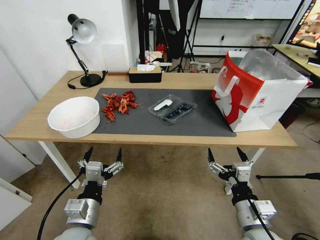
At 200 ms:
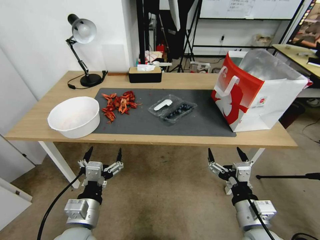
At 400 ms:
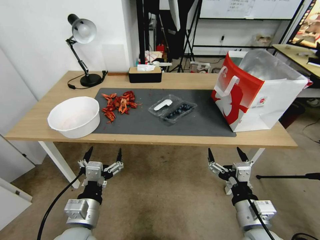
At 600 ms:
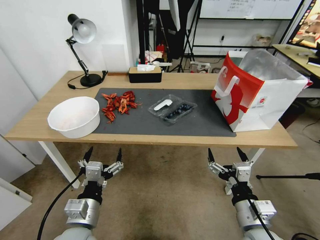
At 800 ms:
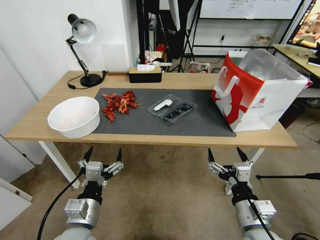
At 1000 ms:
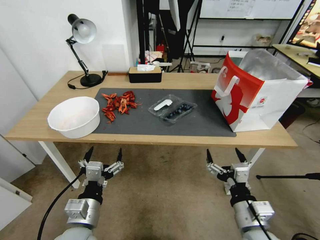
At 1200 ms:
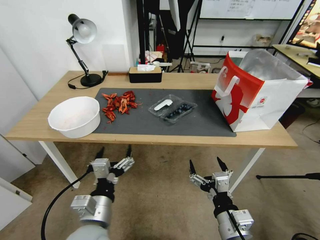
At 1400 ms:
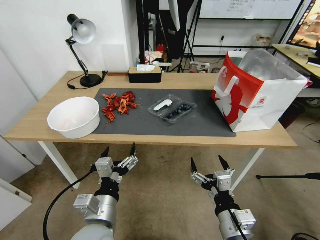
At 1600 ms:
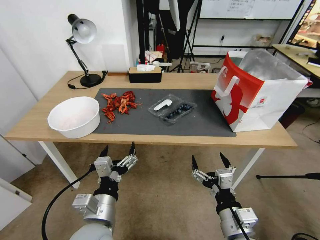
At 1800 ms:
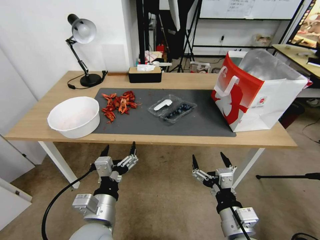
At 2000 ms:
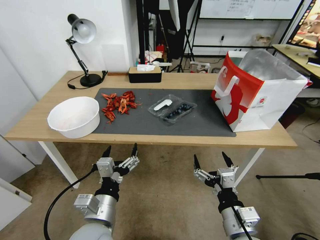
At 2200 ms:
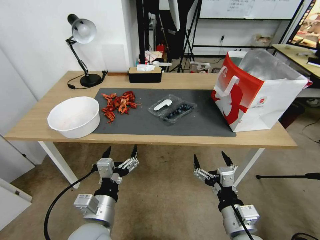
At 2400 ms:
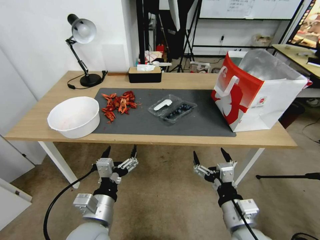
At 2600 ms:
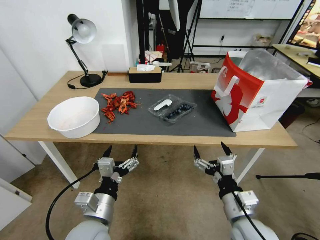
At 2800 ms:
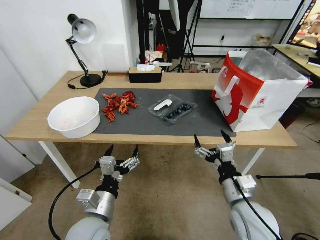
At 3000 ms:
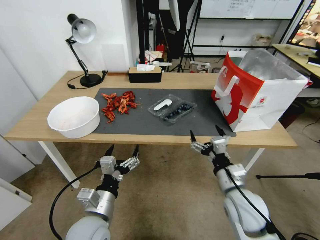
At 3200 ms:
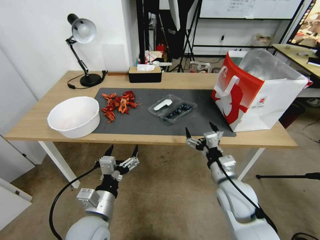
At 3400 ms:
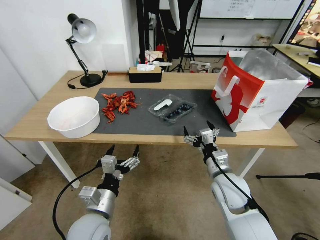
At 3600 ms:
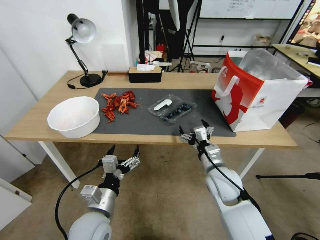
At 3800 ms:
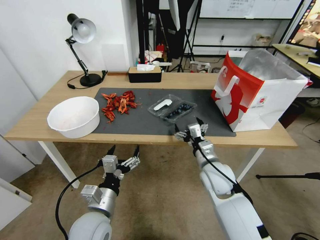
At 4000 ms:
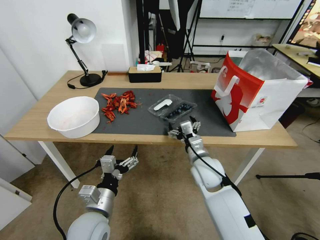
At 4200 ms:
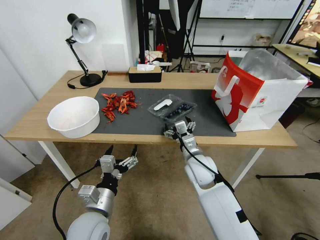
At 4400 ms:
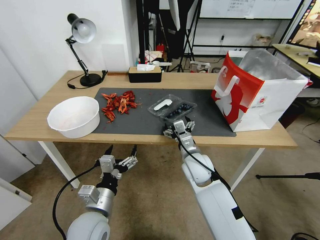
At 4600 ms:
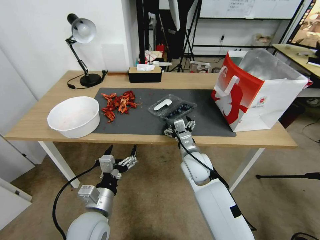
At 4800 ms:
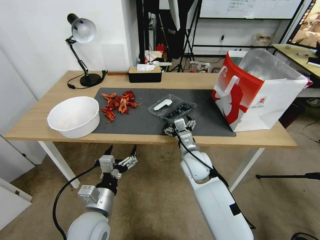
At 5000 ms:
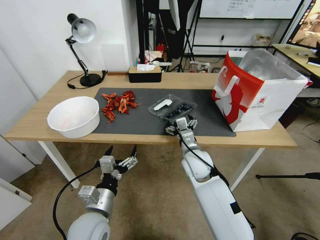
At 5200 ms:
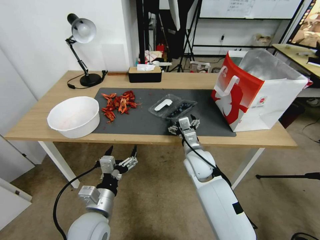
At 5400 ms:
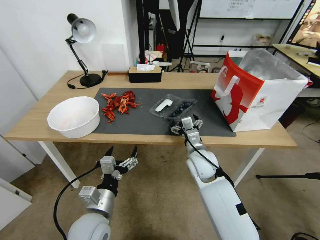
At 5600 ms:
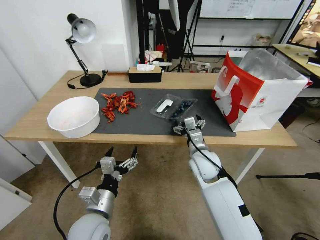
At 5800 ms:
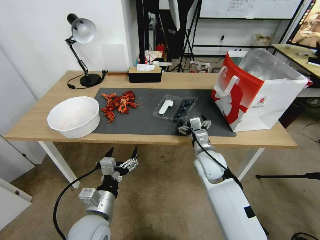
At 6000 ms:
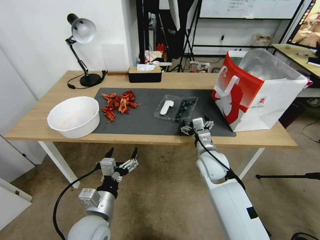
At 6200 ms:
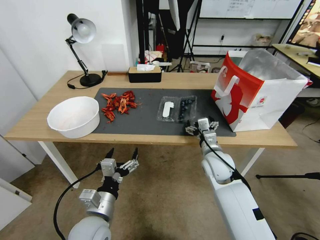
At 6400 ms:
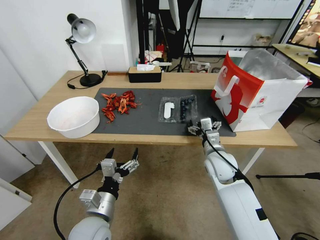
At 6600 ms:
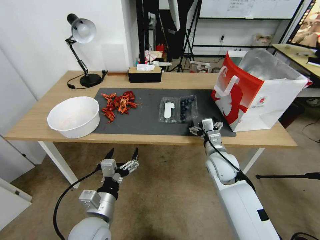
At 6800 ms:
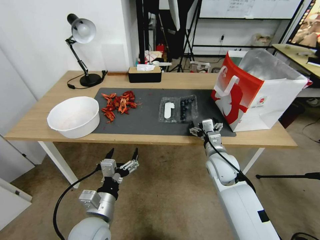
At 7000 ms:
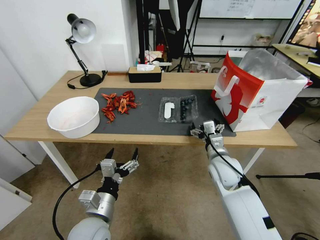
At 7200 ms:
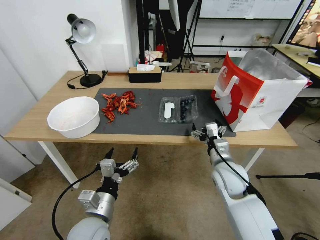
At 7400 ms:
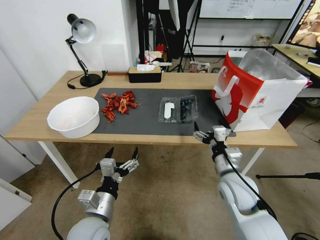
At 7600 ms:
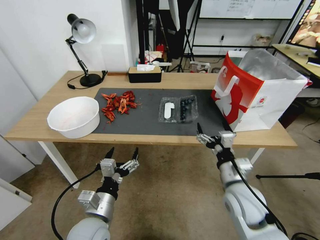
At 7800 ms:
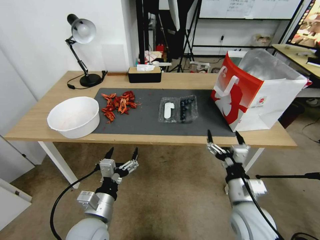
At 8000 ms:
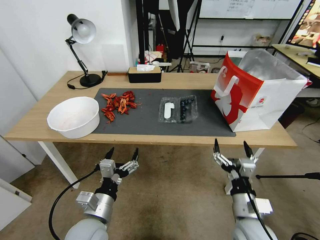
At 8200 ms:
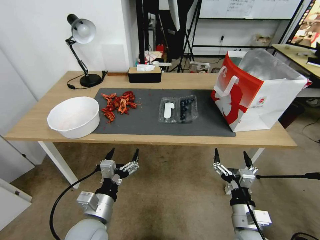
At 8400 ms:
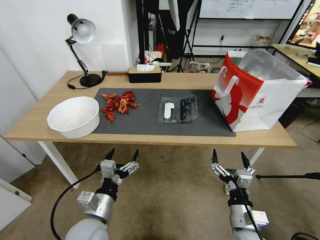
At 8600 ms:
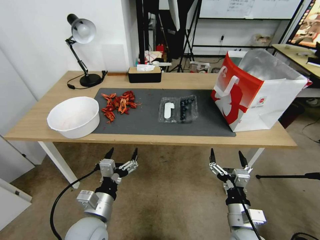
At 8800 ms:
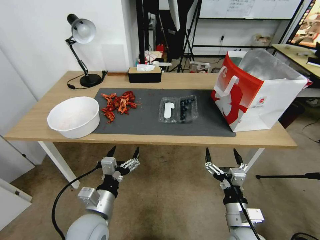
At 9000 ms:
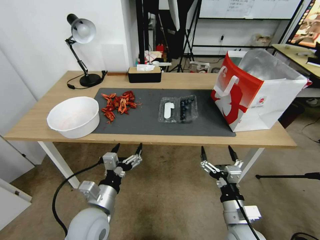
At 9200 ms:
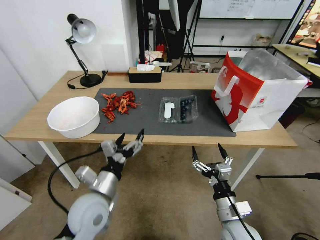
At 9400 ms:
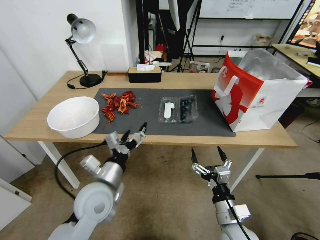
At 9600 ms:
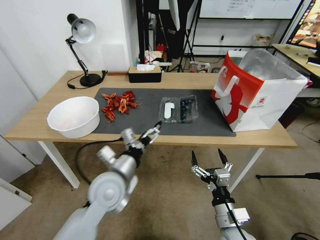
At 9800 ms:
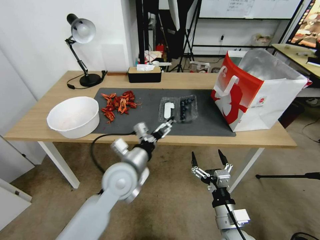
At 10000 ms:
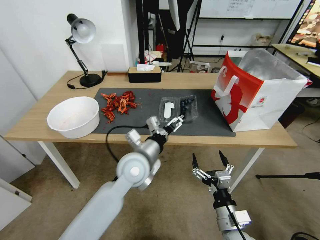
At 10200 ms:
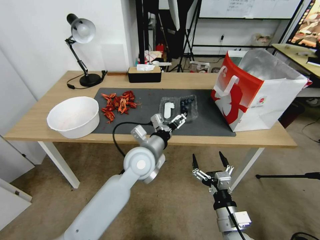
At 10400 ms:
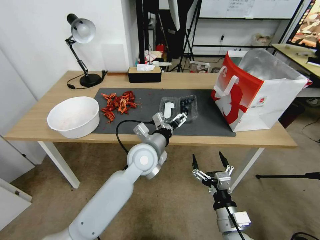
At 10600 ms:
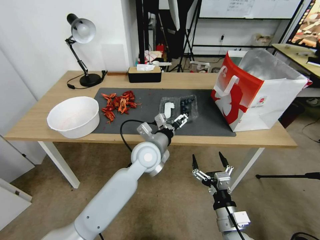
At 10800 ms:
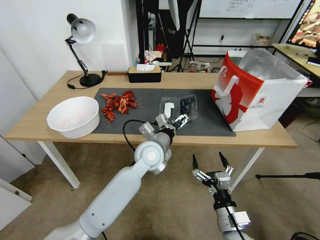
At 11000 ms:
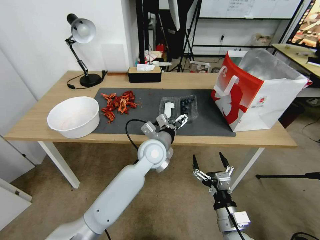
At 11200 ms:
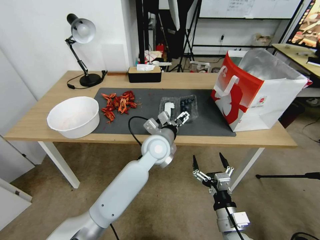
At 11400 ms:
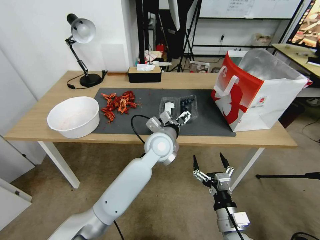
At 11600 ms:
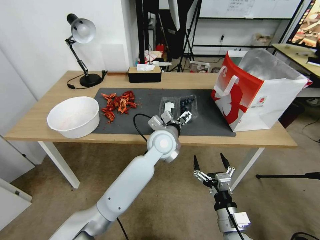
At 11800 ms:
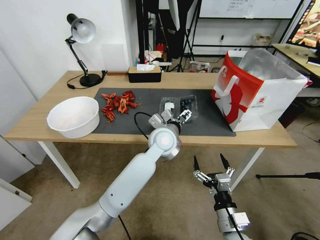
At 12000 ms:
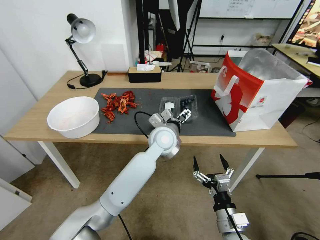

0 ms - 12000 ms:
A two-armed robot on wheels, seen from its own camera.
Task of the whole recording: Close the takeout container lid, then place the container into the takeout bag.
1600 ms - 3000 ms: The right gripper moves forward, roughly 10 cm.
3000 ms - 4400 ms: The right gripper goes roughly 15 cm forward and to the left.
4400 ms - 6000 ms: The right gripper shifts some 5 cm to the right.
6000 ms - 7600 ms: The right gripper is displaced backward by approximately 10 cm.
7600 ms - 9000 ms: The right gripper shifts some 10 cm backward and downward.
9000 ms - 10400 ms: The left gripper is displaced forward, to the right and upward by approximately 25 cm.
10400 ms - 12000 ms: The left gripper moves to the right and forward, about 10 cm.

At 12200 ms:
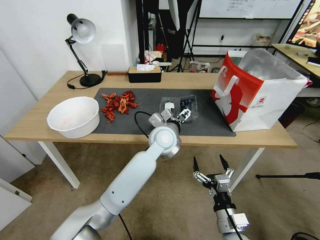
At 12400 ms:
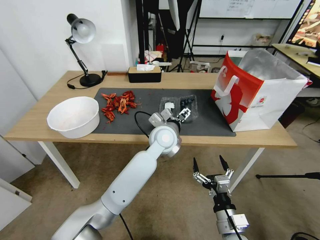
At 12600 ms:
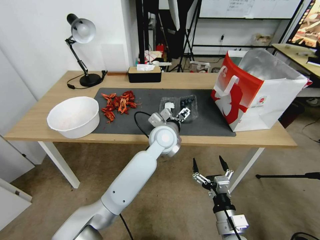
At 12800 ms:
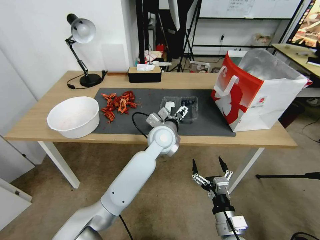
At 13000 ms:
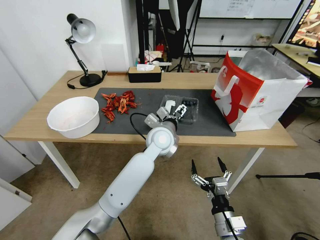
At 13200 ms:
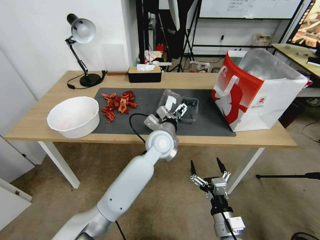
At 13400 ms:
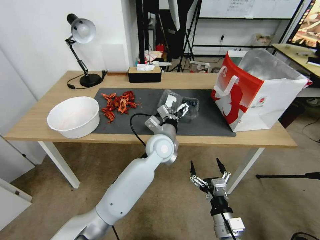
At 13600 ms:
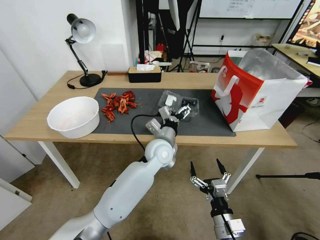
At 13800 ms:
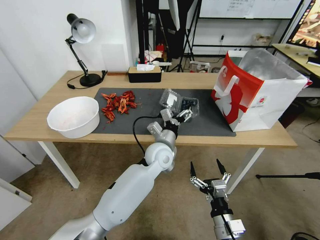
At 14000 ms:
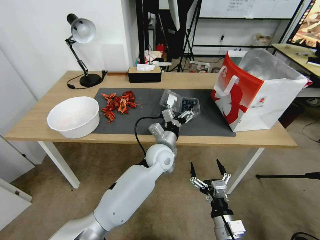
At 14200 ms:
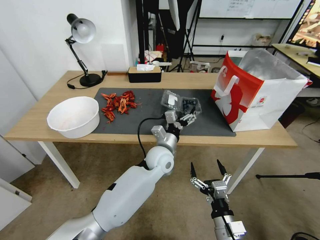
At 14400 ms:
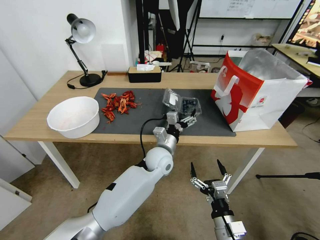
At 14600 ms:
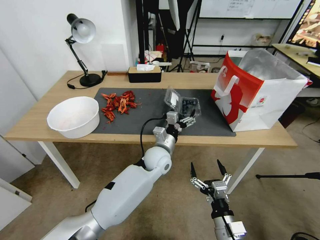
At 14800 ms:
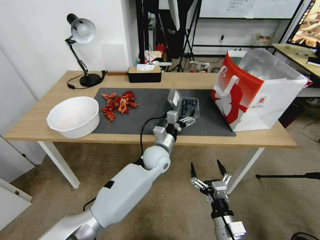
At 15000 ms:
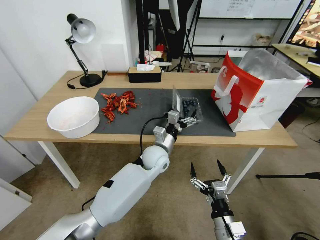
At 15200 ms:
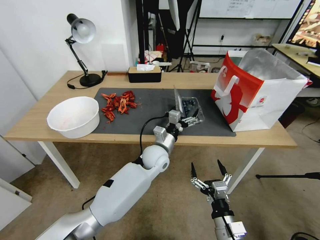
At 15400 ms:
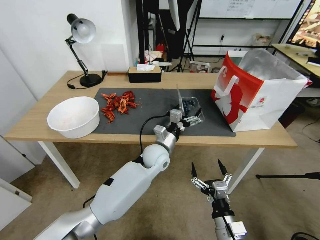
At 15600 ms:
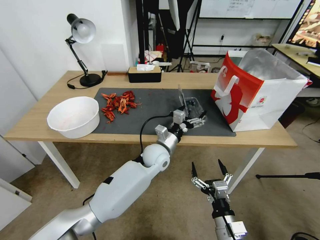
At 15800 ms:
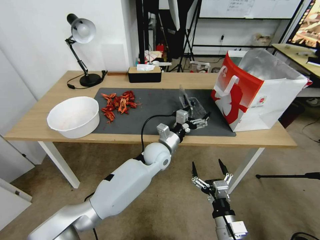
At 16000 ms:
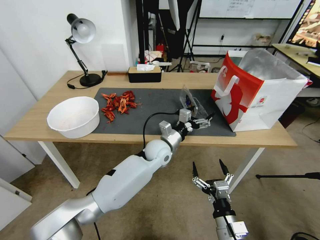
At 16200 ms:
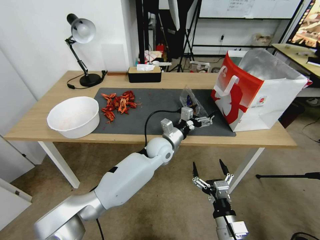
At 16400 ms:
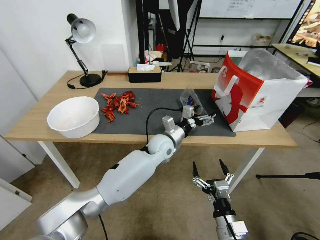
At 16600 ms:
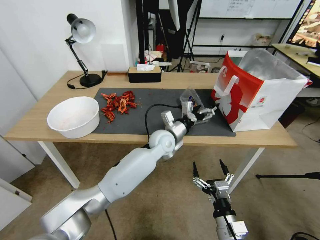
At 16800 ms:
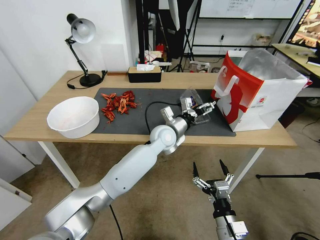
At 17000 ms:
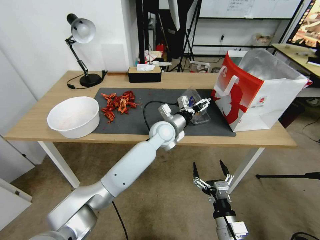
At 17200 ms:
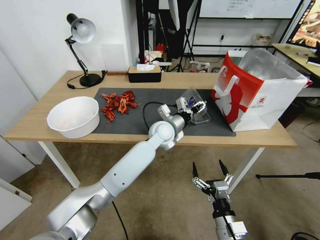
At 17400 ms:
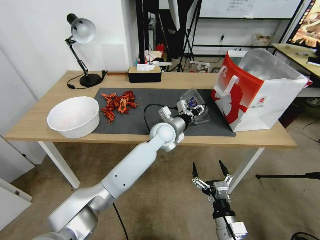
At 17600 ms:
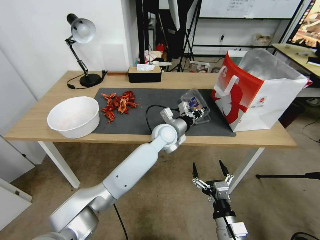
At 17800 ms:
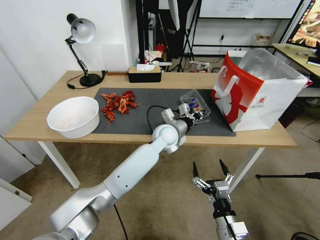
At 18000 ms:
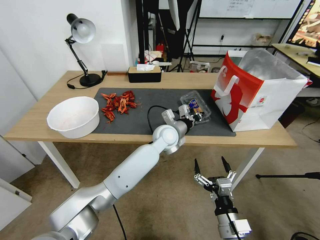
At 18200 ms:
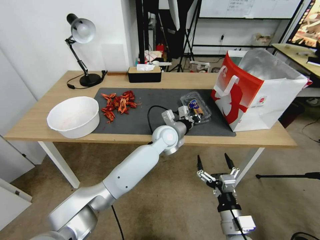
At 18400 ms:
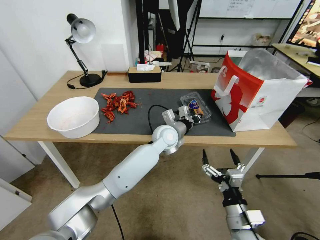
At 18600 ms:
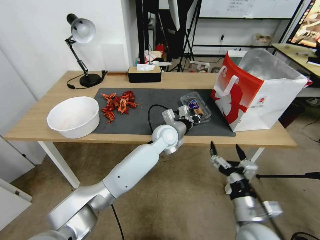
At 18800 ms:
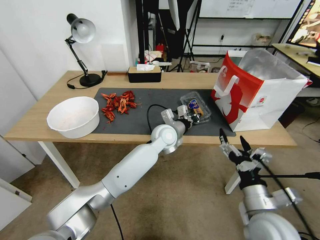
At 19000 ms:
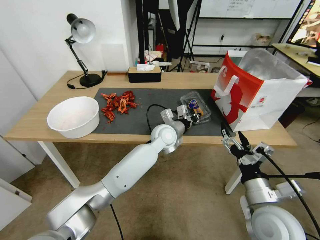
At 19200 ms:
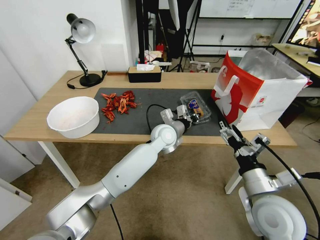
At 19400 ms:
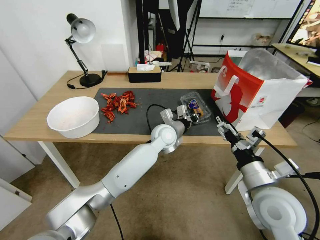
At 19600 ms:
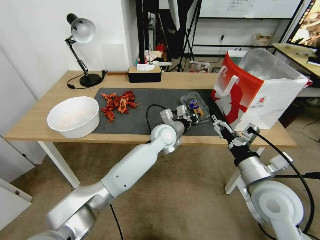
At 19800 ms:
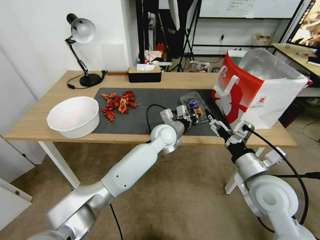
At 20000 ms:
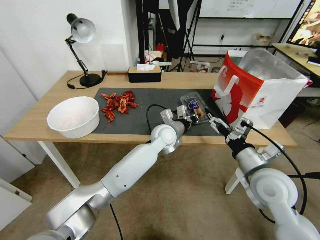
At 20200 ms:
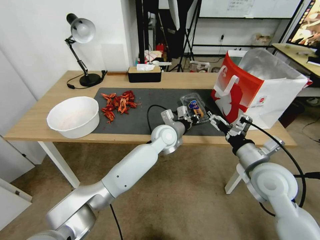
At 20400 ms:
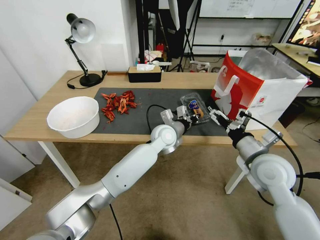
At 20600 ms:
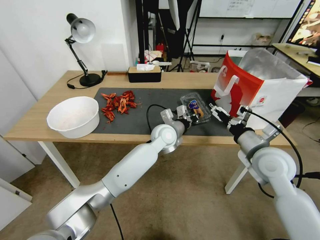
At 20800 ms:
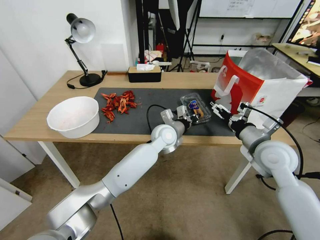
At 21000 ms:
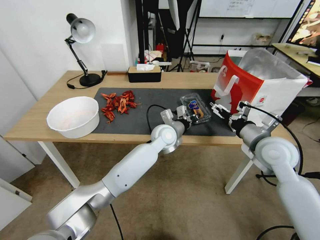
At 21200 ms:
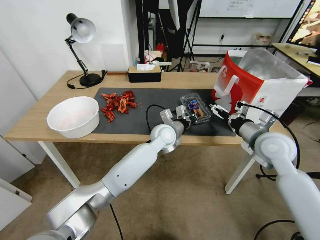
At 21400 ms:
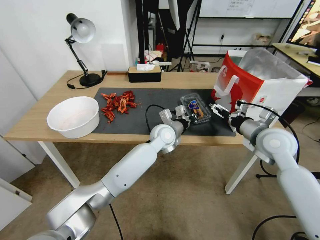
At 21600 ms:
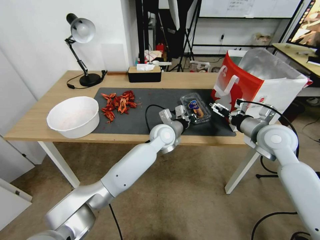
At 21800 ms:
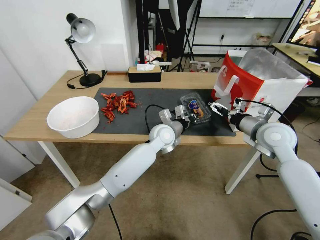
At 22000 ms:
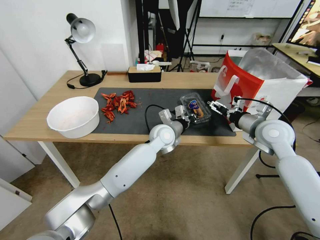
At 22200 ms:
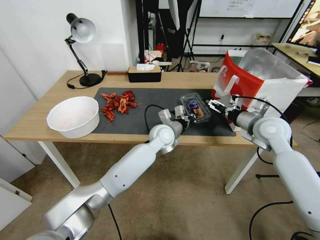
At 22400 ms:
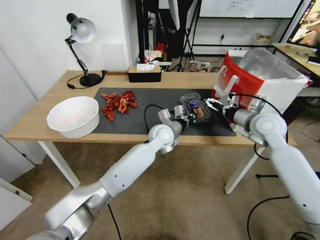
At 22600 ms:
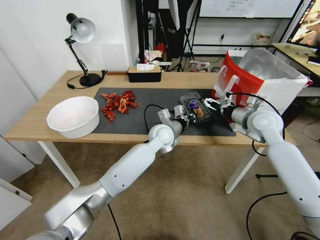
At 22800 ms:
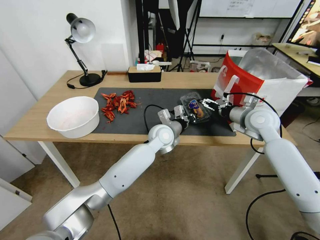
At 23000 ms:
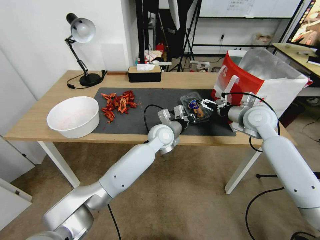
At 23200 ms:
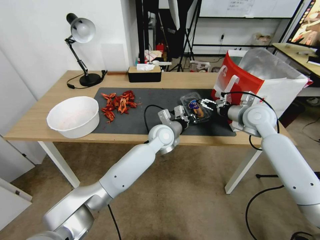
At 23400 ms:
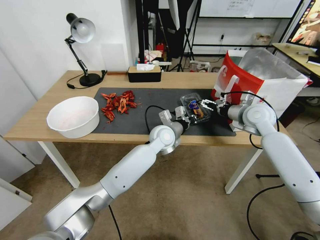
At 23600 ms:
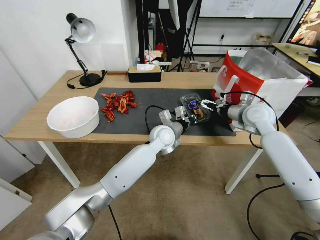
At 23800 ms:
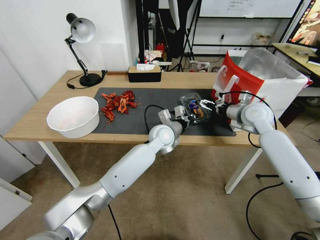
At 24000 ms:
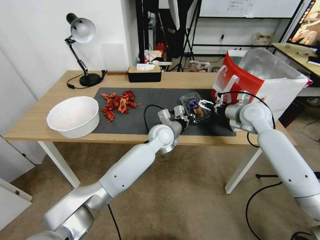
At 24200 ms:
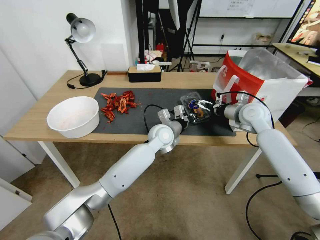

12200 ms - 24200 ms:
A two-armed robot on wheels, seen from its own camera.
Task of the whole recording: Close the takeout container lid, then place the container into the takeout bag.
12200 ms - 13800 ms: The left gripper shifts approximately 5 cm downward.
15200 ms - 16600 ms: The left gripper moves about 5 cm.
16600 ms - 18200 ms: The left gripper closes up.
18200 ms - 19800 ms: The right gripper shifts roughly 15 cm upward and forward.
19800 ms - 21200 ms: The right gripper heads forward and to the right, covering some 10 cm.
21200 ms - 22600 ms: The right gripper shifts approximately 10 cm forward.
22600 ms - 24200 ms: The right gripper shifts roughly 5 cm forward.
